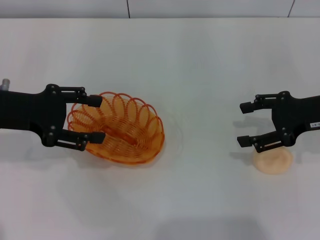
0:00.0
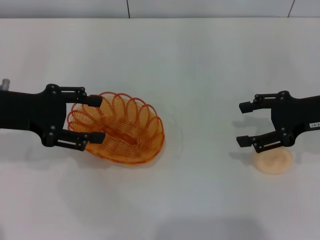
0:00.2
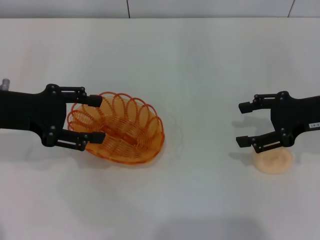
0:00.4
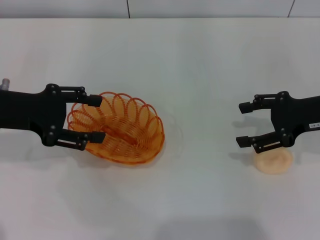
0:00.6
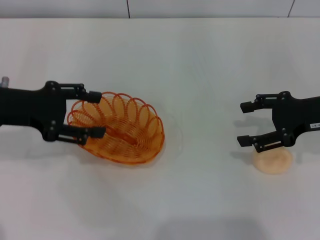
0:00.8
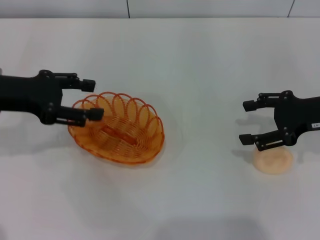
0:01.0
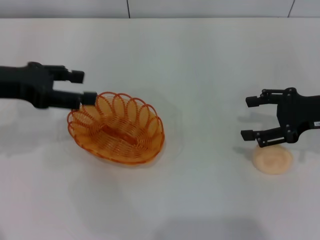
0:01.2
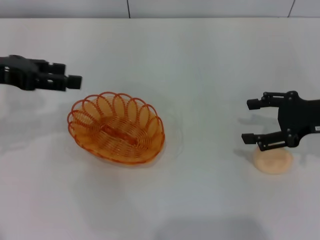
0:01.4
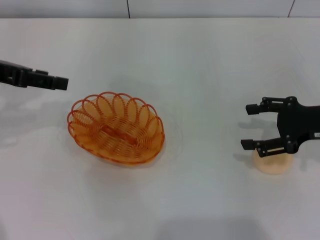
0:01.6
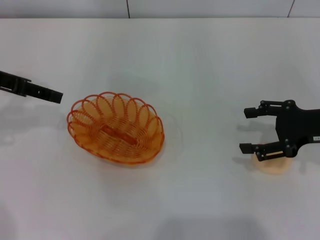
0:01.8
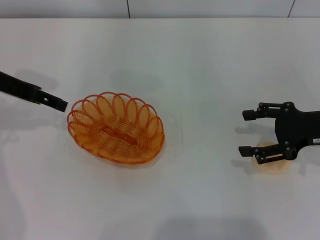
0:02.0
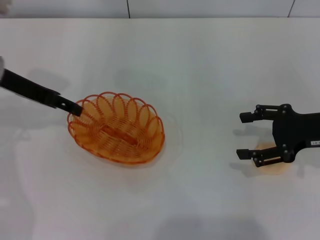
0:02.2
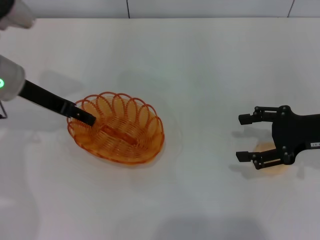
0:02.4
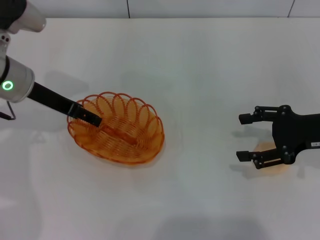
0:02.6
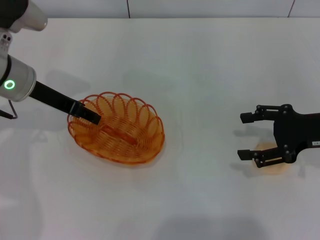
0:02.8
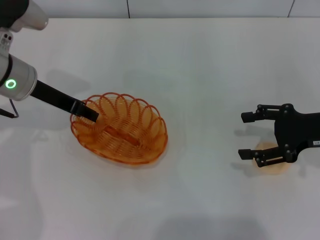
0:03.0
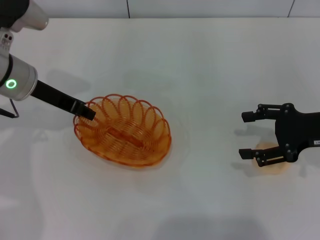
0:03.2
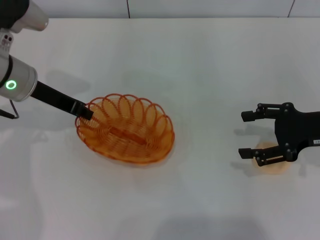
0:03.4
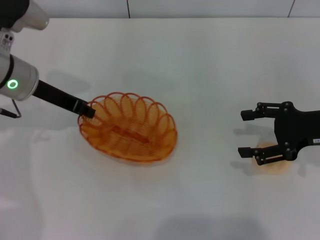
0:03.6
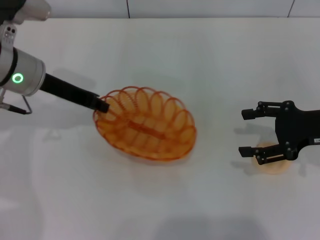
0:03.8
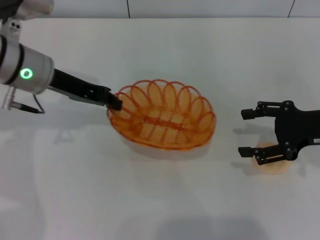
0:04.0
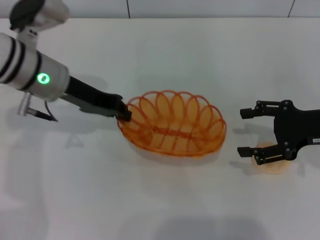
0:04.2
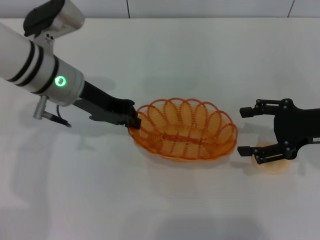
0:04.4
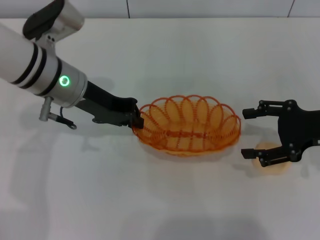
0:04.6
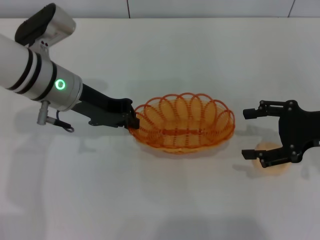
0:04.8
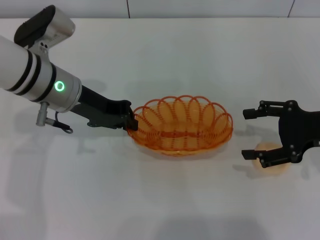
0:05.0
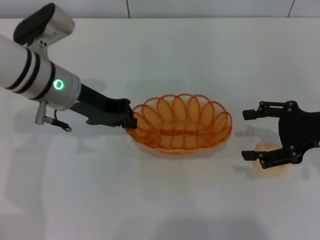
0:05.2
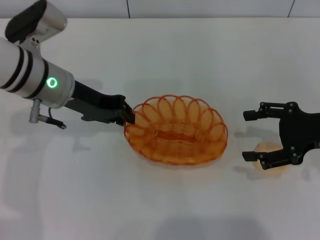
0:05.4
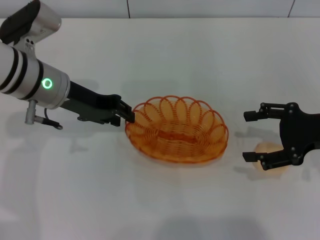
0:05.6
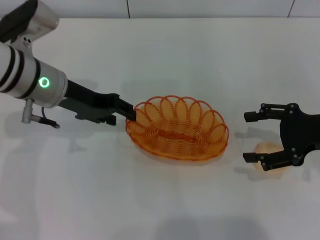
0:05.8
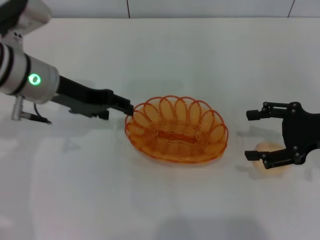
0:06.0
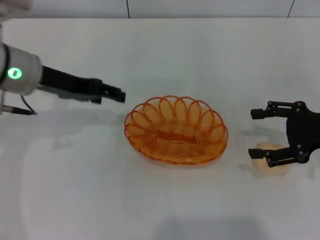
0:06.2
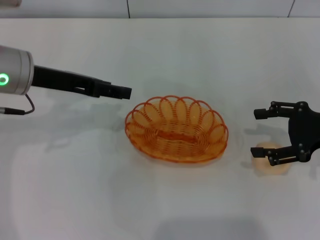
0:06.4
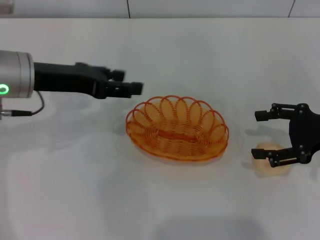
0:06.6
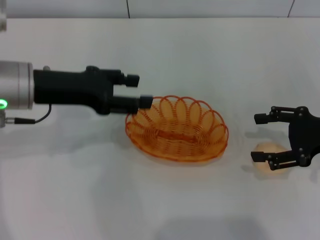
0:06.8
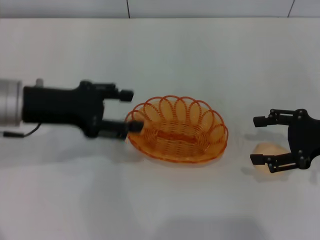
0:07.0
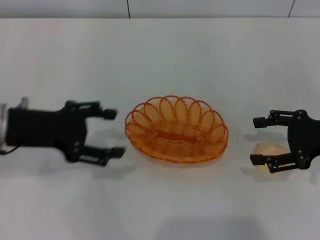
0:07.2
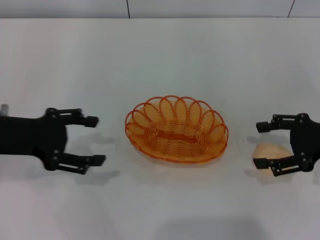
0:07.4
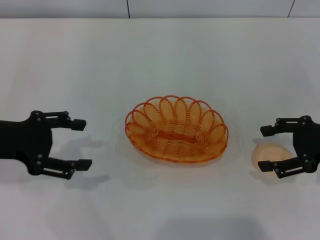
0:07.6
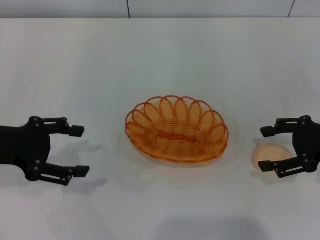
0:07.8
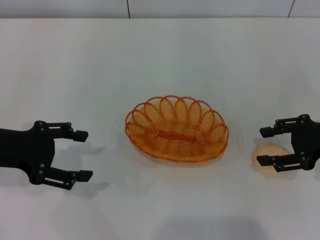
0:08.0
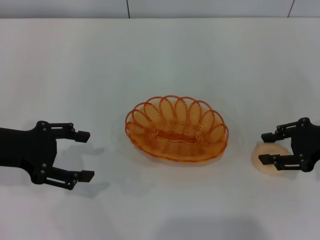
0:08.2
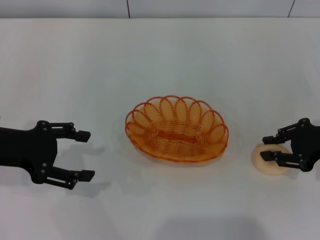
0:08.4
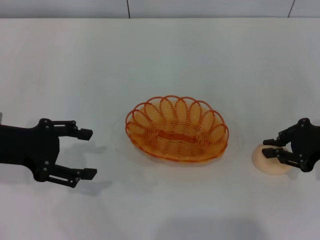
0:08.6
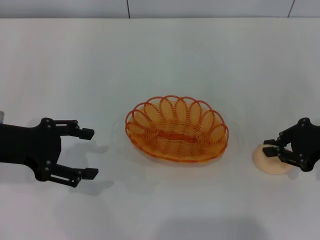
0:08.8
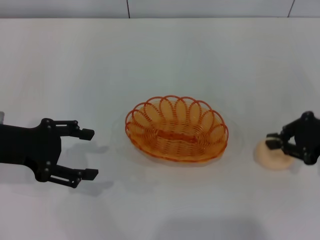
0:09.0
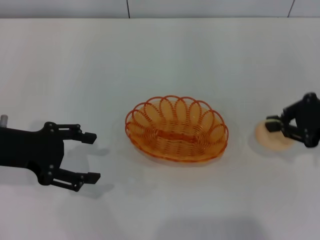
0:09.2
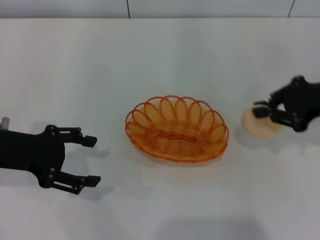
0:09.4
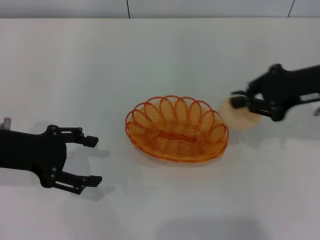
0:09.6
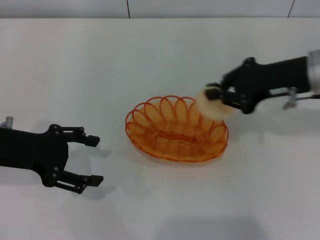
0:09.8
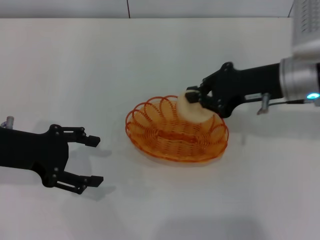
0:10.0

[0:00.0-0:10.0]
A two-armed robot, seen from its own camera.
Step, 0:00.0 to 0:03.6: Pick up the basket with the left gripper.
Step, 0:04.0 to 0:06.0: Place the basket in the center of view with the left gripper.
Step, 0:06.2 to 0:09.0: Pick up the egg yolk pastry with the right gripper.
0:00.0 to 0:01.4: The left gripper heads upward, covering about 5 cm.
0:01.4 to 0:02.8: The left gripper travels to the right, downward and forward by about 10 cm.
0:02.8 to 0:04.2: The left gripper closes its fingers.
0:04.2 to 0:05.8: The left gripper opens up.
0:05.8 to 0:07.2: The left gripper is displaced backward and to the left by some 10 cm, and opens up.
0:07.2 to 0:08.6: The right gripper closes its fingers.
0:08.6 to 0:10.0: The right gripper moves to the left and upward, approximately 15 cm, and closes up.

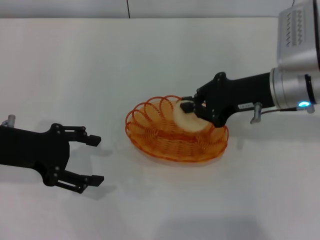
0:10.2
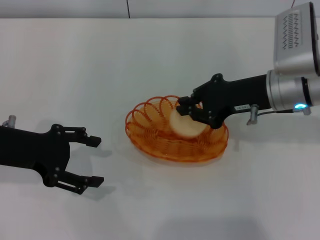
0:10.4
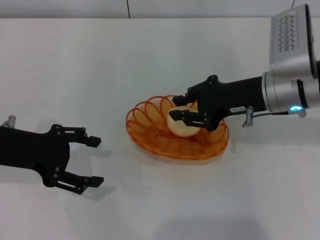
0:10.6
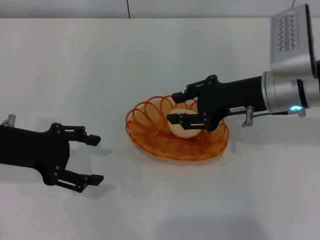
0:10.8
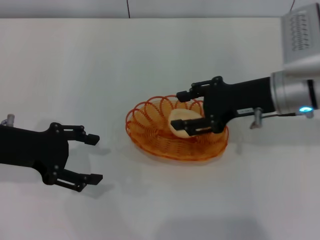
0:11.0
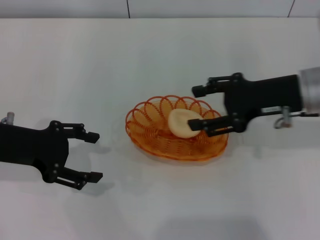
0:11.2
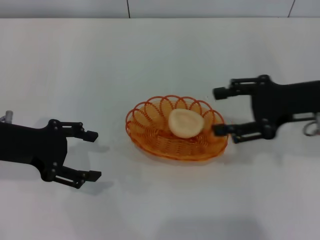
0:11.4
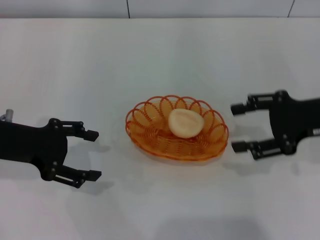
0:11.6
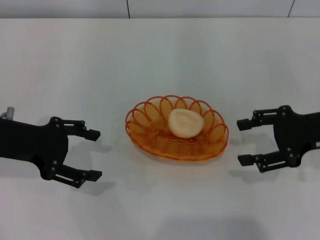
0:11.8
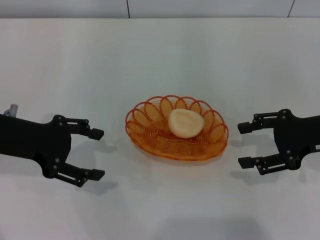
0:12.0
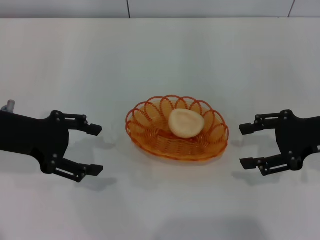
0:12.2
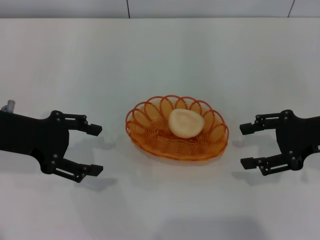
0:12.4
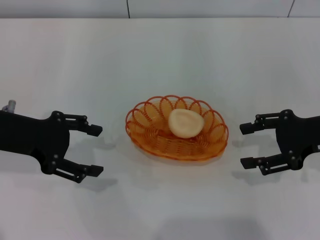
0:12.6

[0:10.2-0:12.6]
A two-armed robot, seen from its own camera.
0:10.2 to 0:11.4: The right gripper shifts about 5 cm to the right, and opens its fingers.
0:11.4 to 0:12.6: The right gripper moves roughly 5 cm.

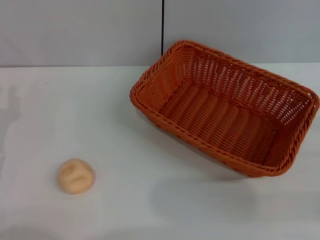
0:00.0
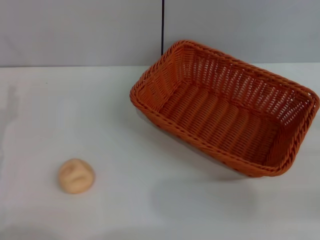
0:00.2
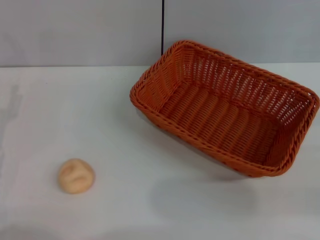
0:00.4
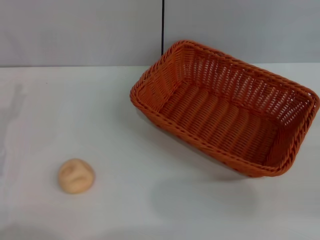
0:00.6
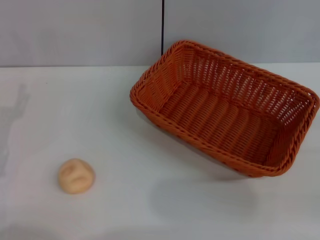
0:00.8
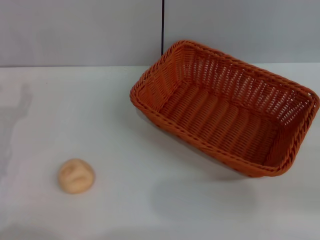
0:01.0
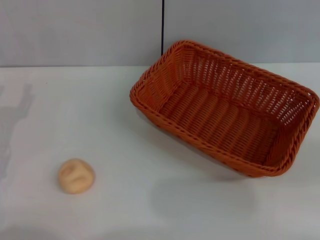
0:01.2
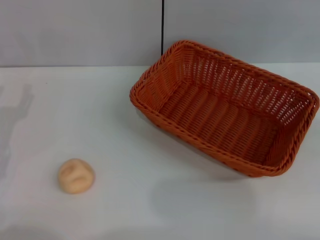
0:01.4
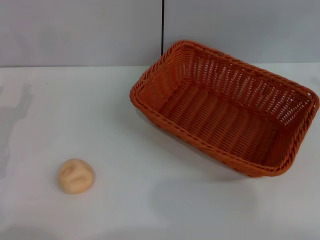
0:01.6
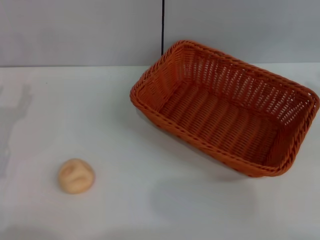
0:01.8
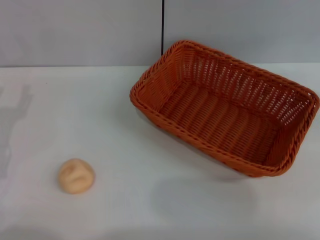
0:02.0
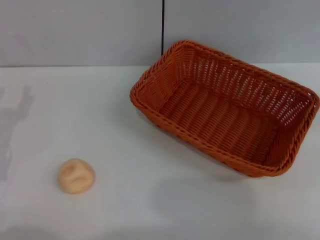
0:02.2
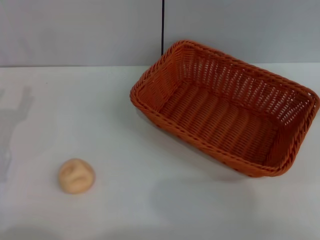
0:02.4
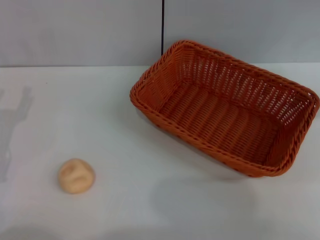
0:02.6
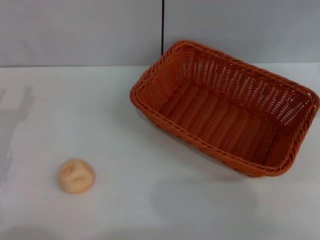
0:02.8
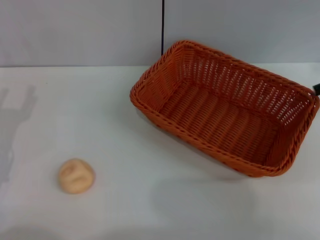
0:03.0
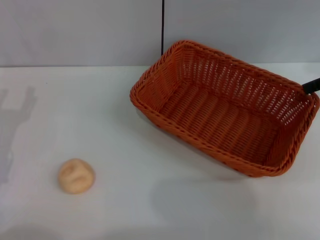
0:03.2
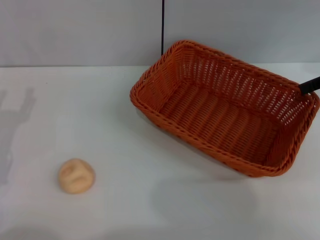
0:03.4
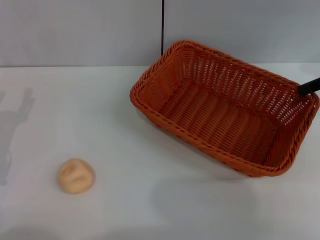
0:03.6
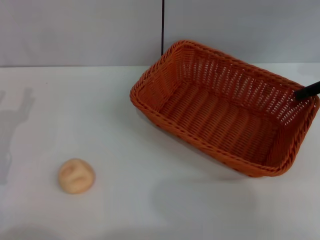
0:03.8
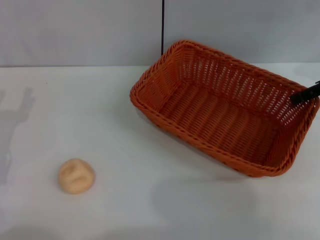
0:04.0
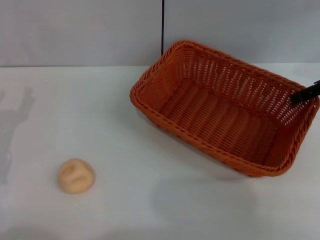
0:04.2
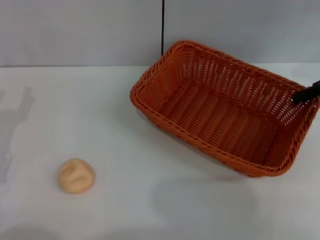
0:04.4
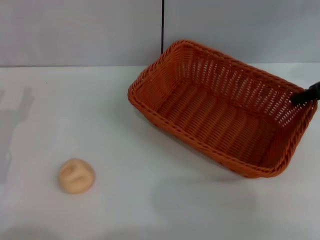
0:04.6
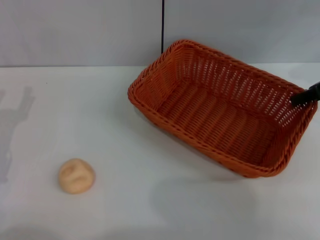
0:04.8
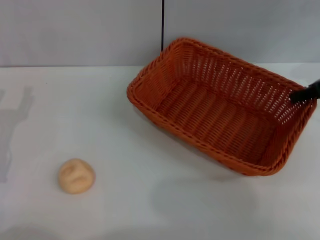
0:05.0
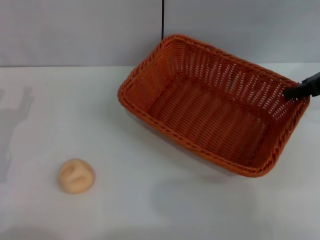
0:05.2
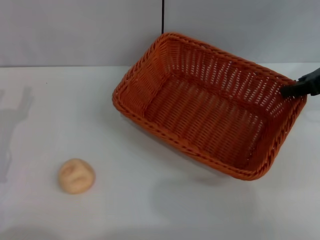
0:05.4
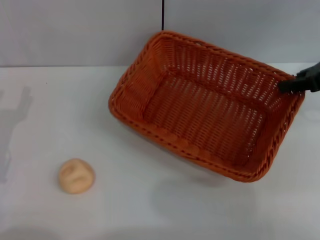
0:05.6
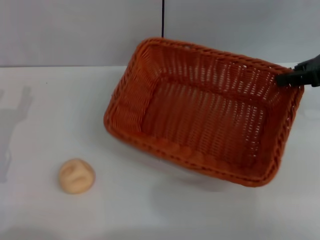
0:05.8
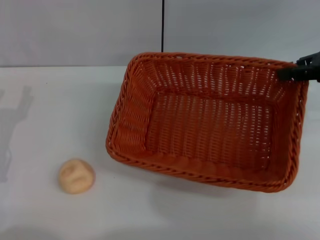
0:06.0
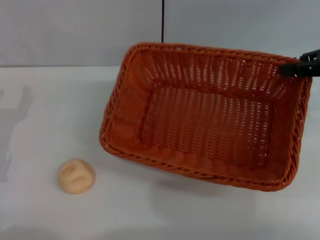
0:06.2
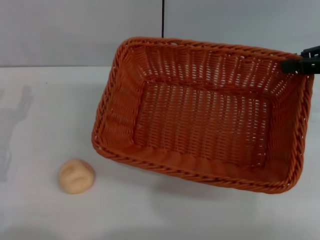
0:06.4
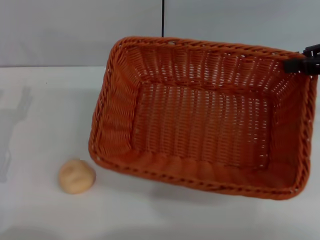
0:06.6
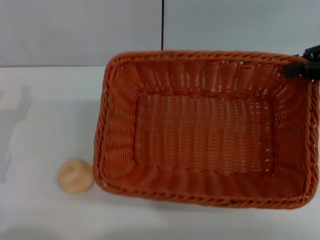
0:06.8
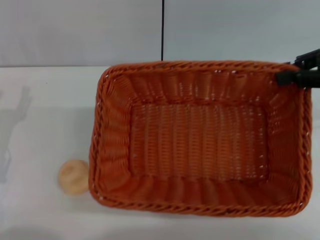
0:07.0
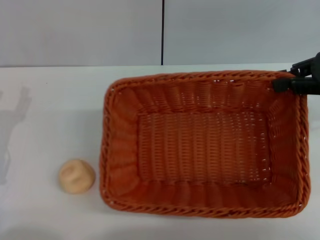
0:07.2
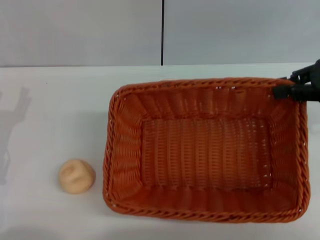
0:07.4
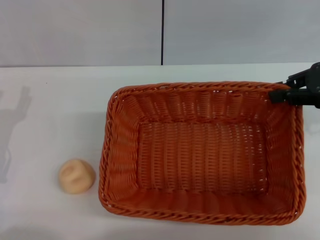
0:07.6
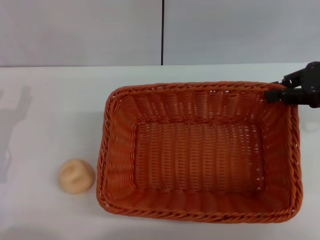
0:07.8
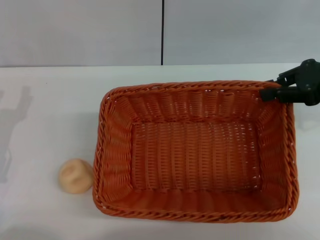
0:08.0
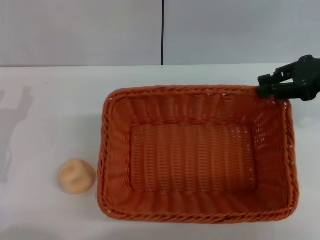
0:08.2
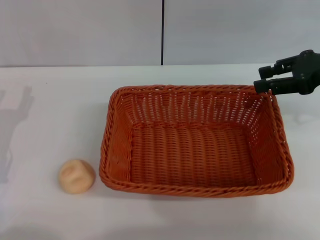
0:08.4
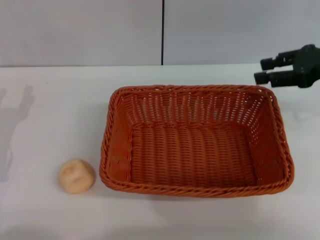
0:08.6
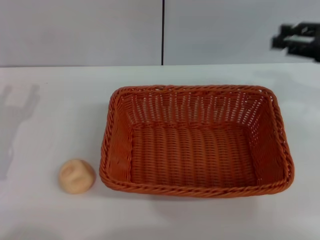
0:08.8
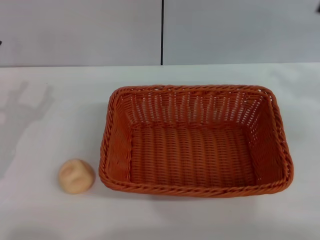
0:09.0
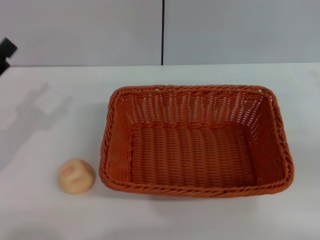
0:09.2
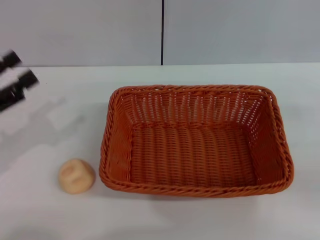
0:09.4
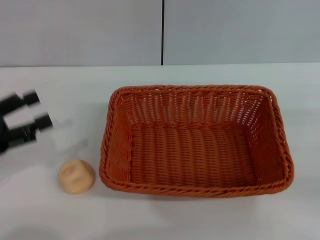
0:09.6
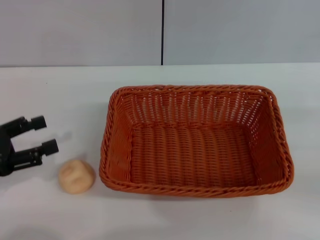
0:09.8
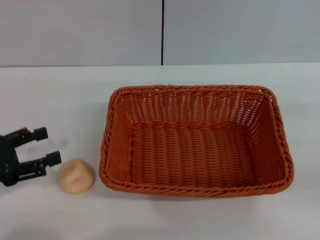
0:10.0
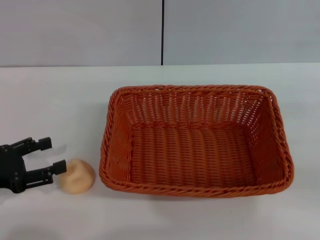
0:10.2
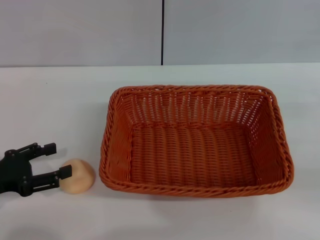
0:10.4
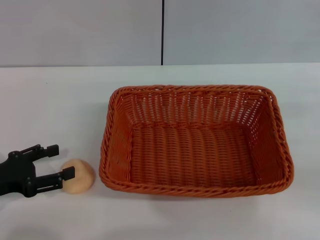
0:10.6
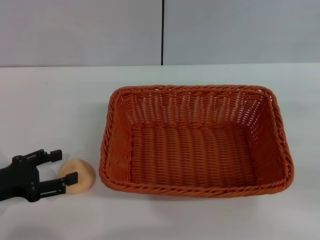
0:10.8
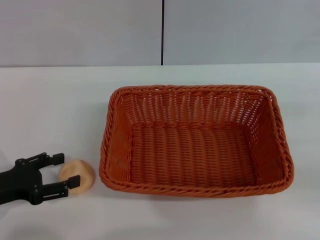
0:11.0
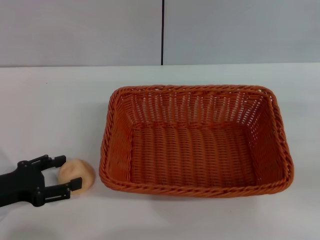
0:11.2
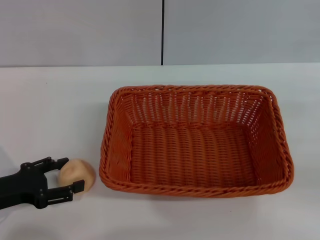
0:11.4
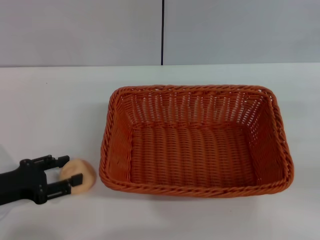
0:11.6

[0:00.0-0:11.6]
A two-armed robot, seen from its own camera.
Step, 0:00.0 to 0:08.4: Move the basket to the center of view with the right gripper.
0:04.4 to 0:05.8: The right gripper closes its fingers.
0:07.2 to 0:08.8: The right gripper opens its fingers.
0:08.8 to 0:10.2: The right gripper travels backward, to the right and downward by roughly 15 cm.
0:10.2 to 0:11.6: There are only small adjustments of the grippers.
